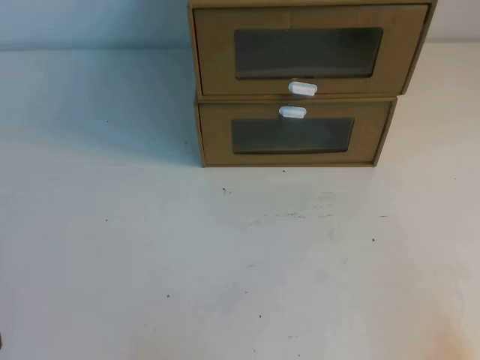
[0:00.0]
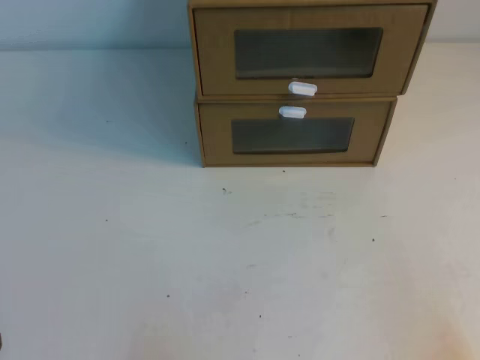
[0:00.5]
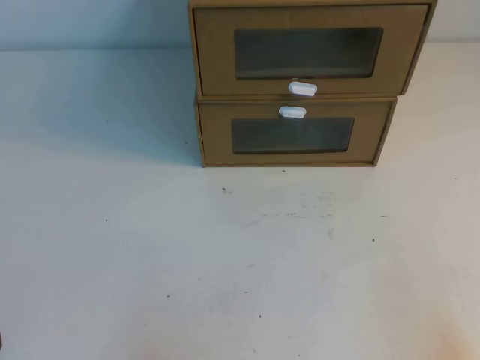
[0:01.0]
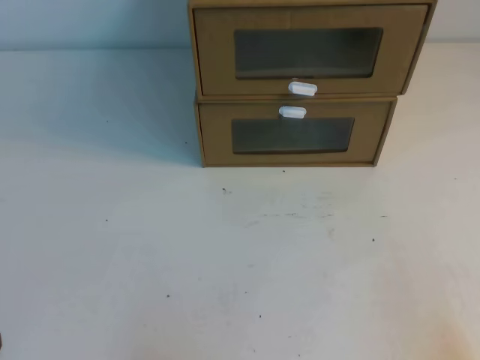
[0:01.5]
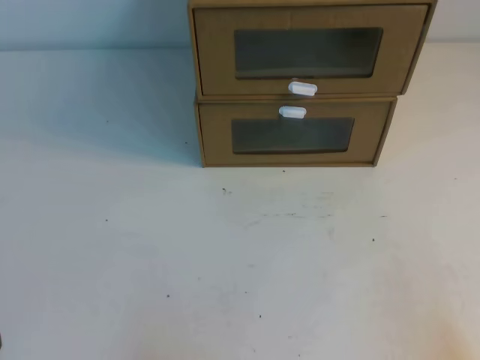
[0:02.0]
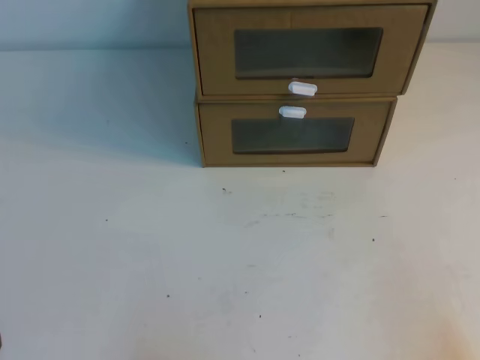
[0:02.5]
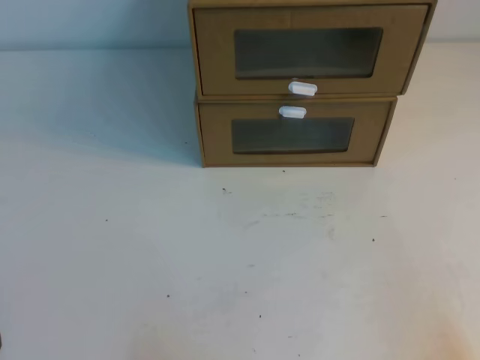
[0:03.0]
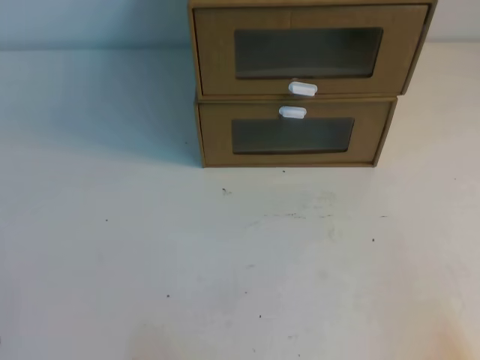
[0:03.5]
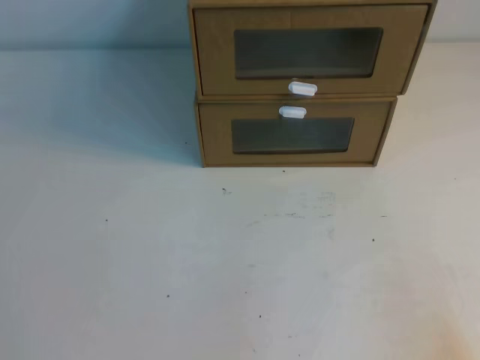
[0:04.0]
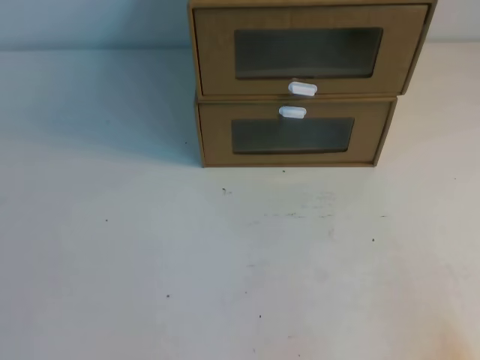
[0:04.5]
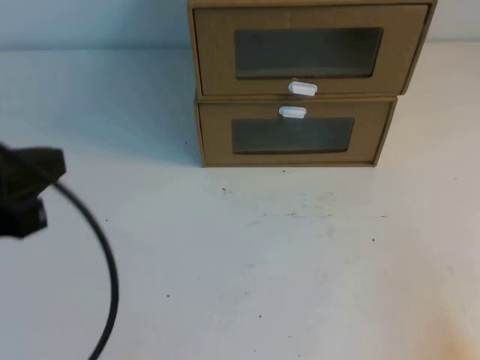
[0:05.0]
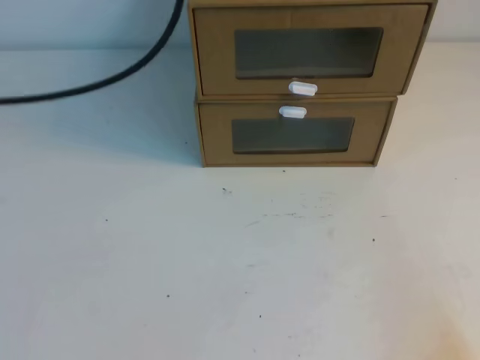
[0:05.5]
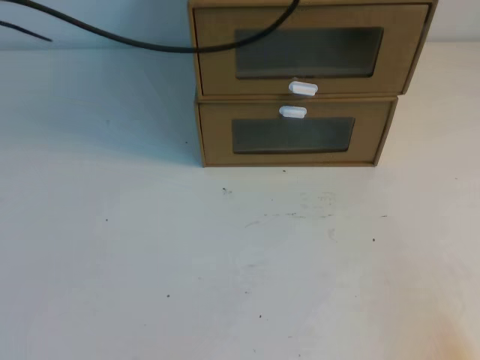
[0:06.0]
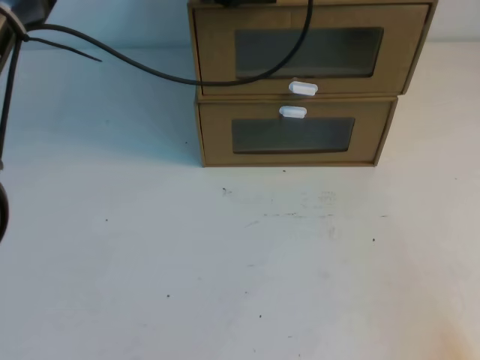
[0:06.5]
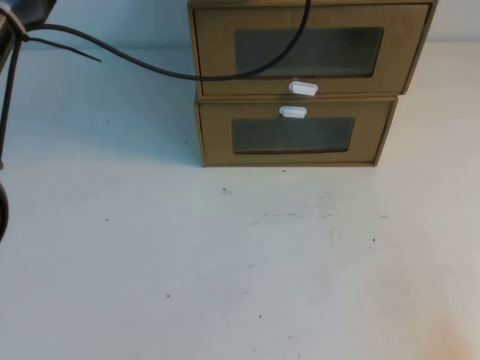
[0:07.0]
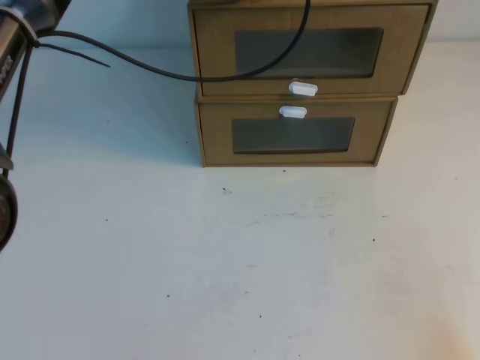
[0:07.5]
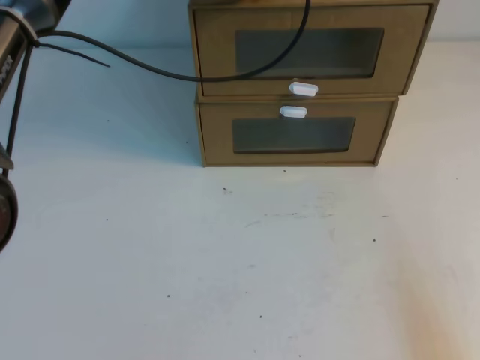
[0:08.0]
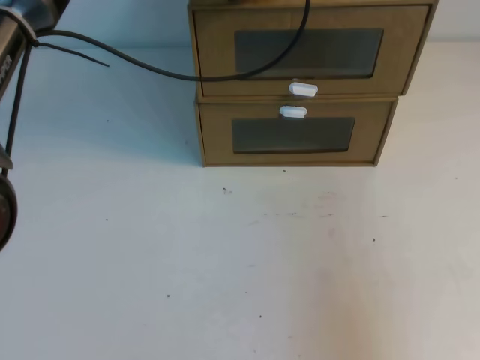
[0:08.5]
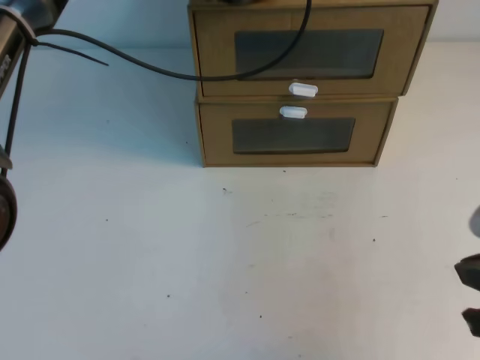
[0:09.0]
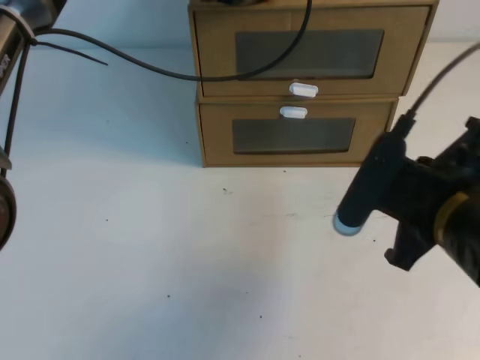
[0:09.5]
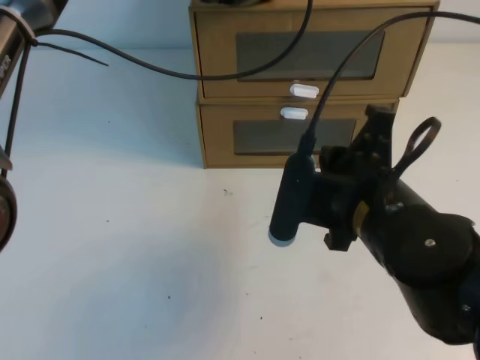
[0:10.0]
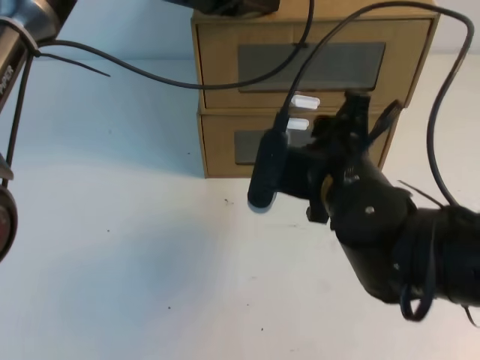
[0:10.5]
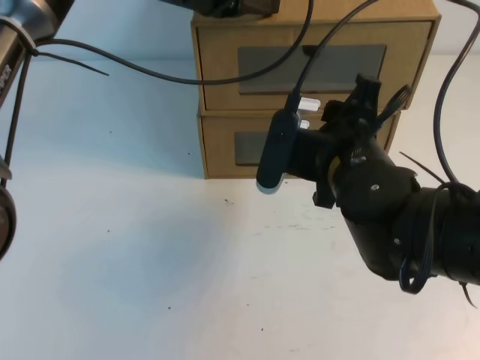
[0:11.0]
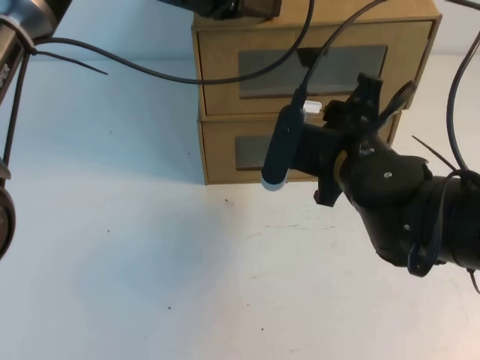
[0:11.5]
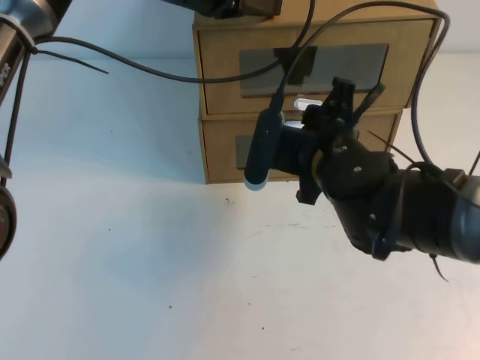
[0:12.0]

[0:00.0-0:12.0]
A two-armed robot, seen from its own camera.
Task of the whole recording: open the shoebox on the table.
0:00.0 to 0:02.0: Both grippers stay put.
0:04.0 to 0:06.0: The left gripper is displaced forward, upward and to the right by roughly 50 cm.
0:06.0 to 0:08.0: The left gripper goes some 10 cm downward and forward.
0:08.0 to 0:10.0: The right gripper moves to the left and forward, approximately 25 cm.
0:10.0 to 0:12.0: The right gripper travels forward by some 10 cm, and opens its fingers.

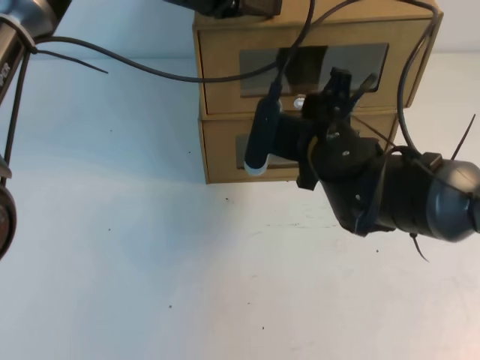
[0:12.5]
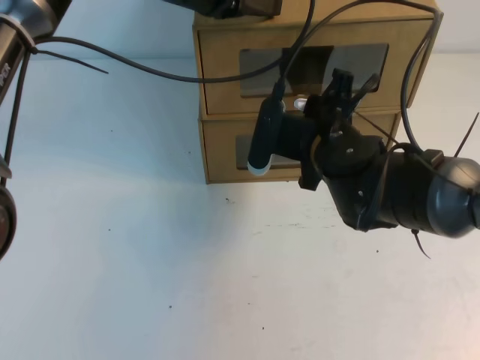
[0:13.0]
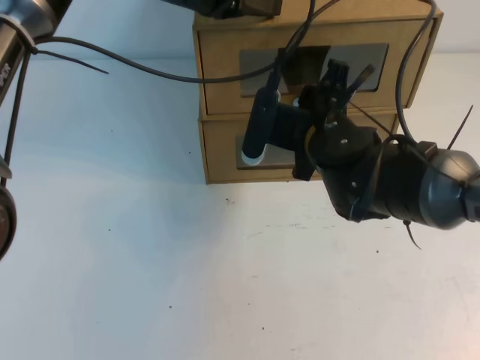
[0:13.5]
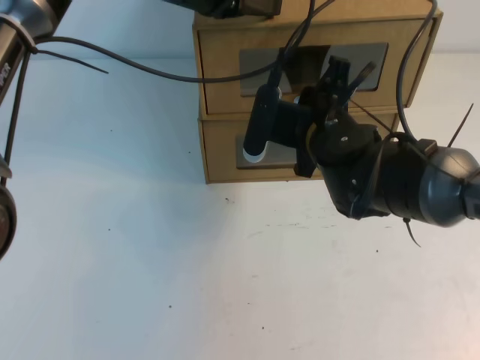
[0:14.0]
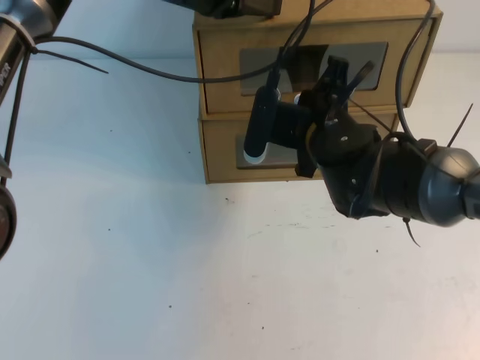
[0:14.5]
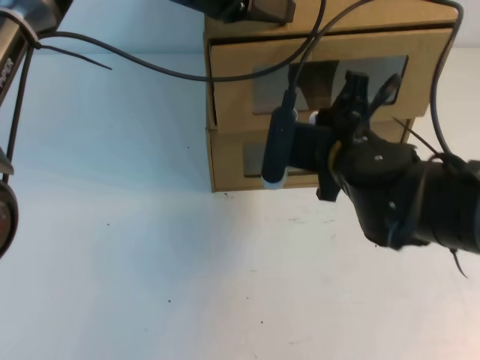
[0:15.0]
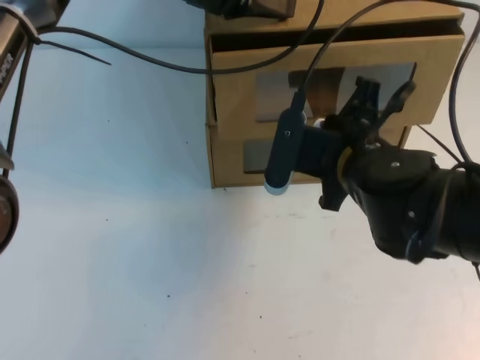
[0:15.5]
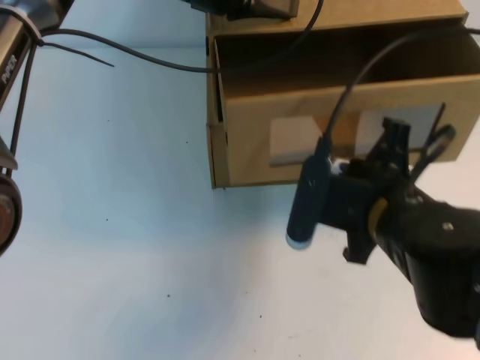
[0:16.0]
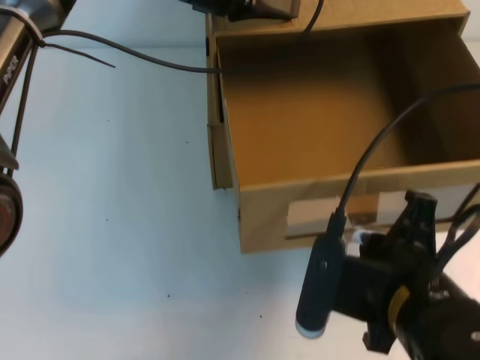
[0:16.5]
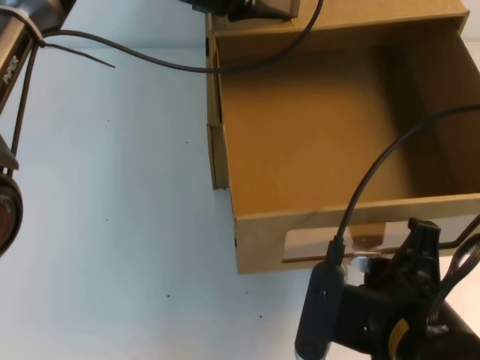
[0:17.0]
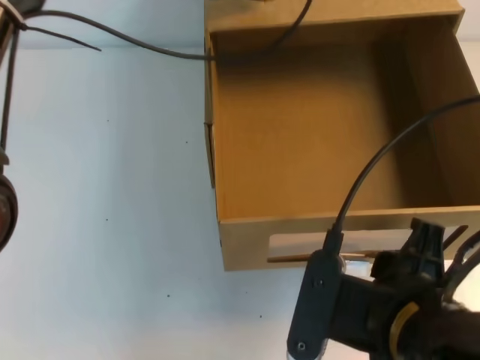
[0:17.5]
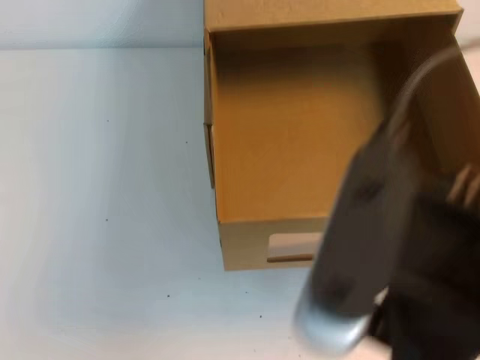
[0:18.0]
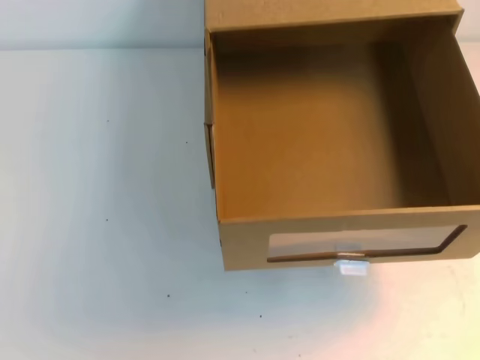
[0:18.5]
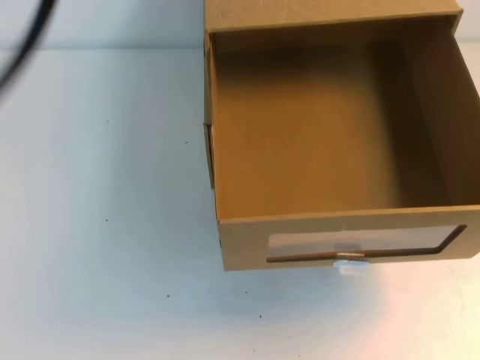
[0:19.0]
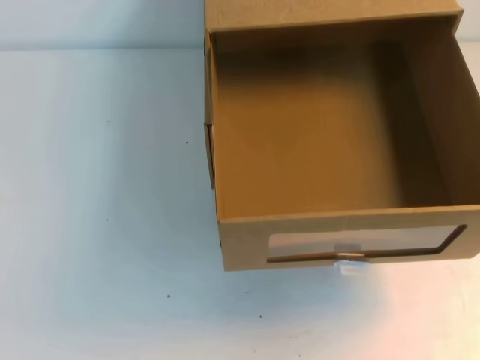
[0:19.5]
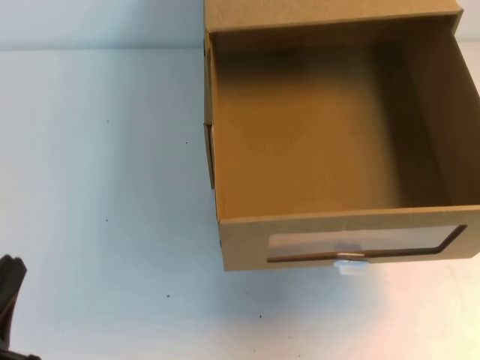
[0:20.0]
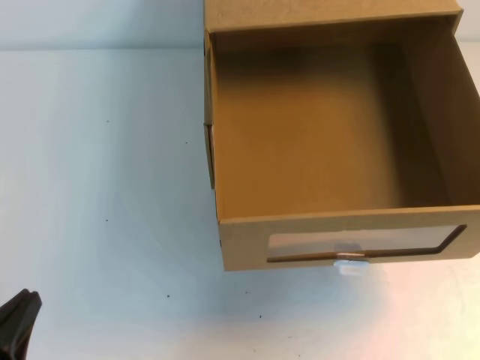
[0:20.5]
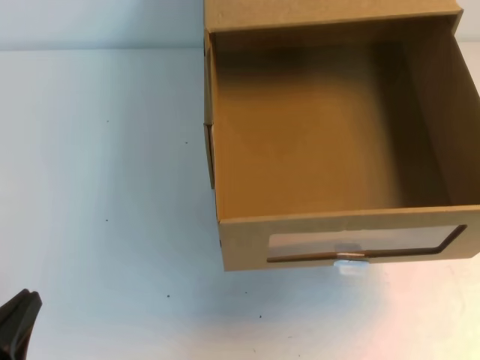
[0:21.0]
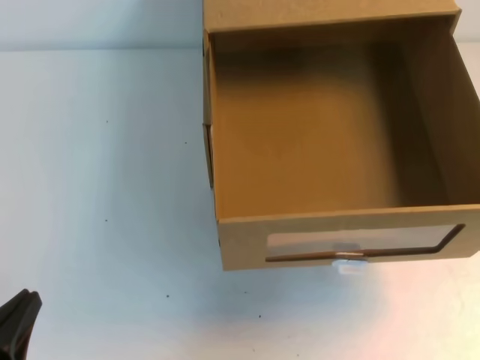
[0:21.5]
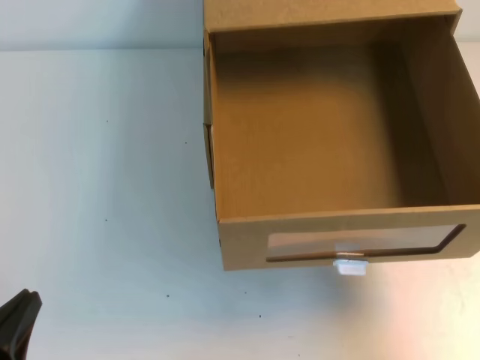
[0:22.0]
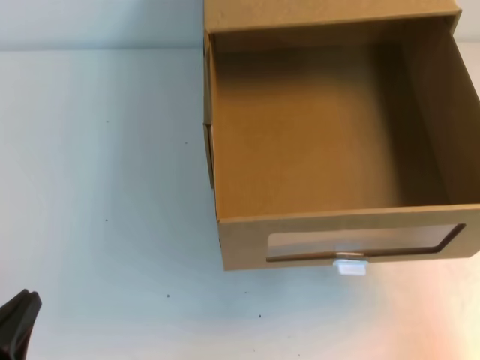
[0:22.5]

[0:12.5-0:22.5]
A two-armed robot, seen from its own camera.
Task of the whole recording: open the shoebox on the table.
0:12.5 to 0:14.5: The right gripper closes its fingers.
0:14.5 to 0:16.5: The right gripper is displaced backward by roughly 20 cm.
0:16.5 to 0:18.5: The right gripper heads upward and to the right, covering roughly 25 cm, and opens, then closes again, while the left gripper goes roughly 30 cm upward, backward and to the left.
0:18.5 to 0:20.5: The left gripper shifts about 40 cm downward. The right gripper goes roughly 10 cm to the right.
0:20.5 to 0:22.5: The right gripper goes about 20 cm downward.

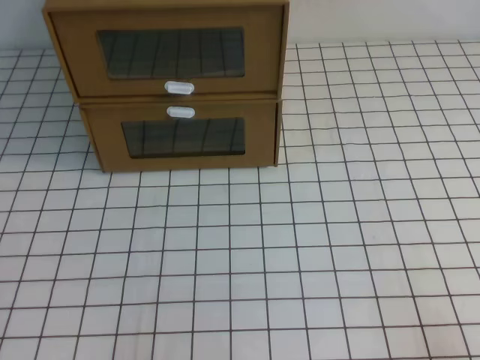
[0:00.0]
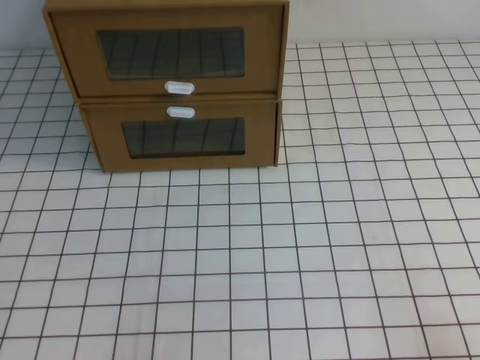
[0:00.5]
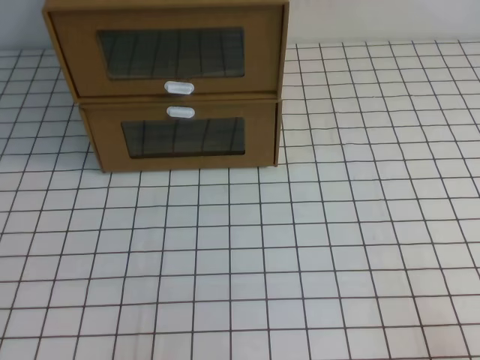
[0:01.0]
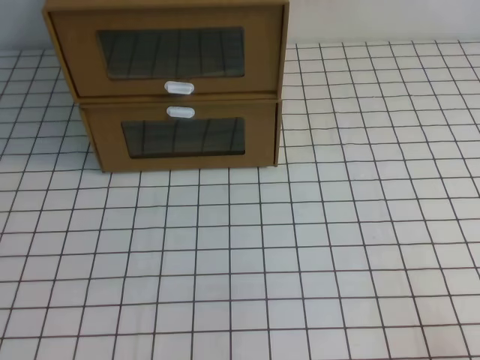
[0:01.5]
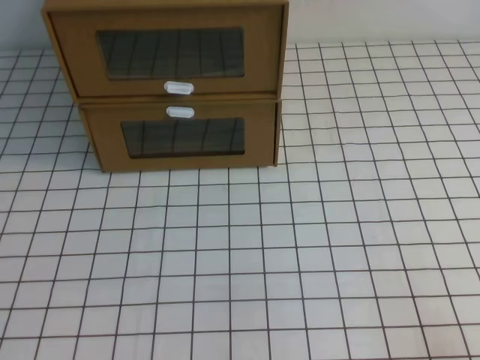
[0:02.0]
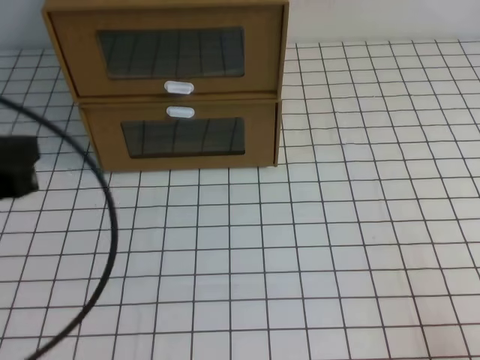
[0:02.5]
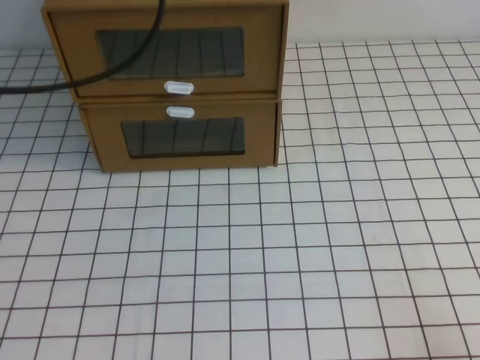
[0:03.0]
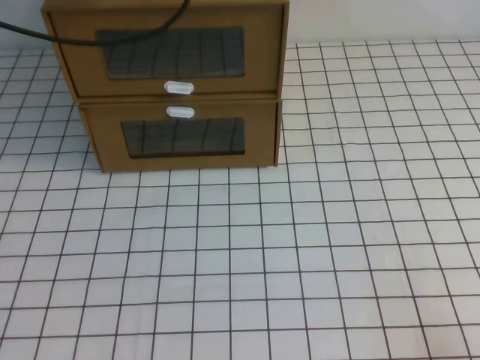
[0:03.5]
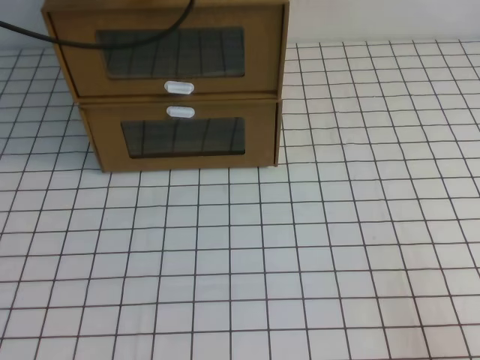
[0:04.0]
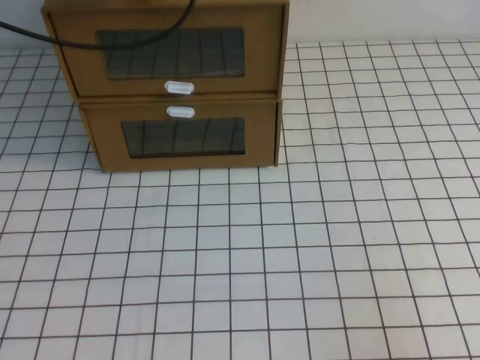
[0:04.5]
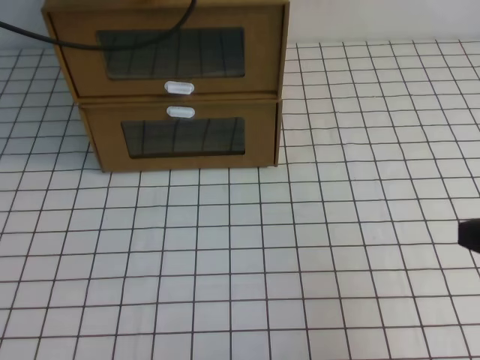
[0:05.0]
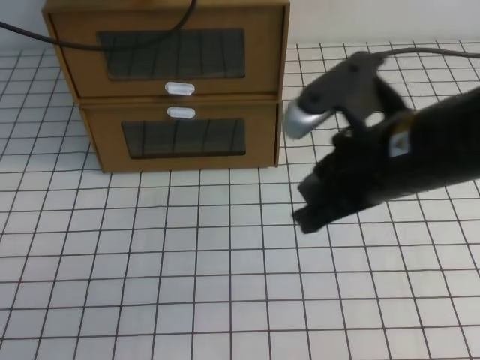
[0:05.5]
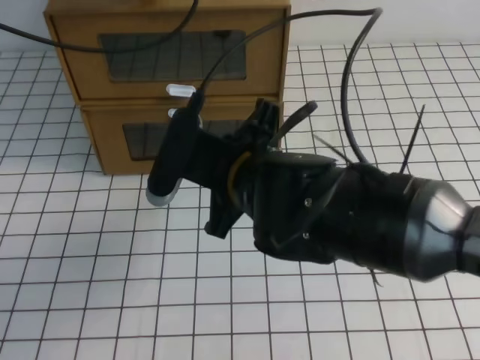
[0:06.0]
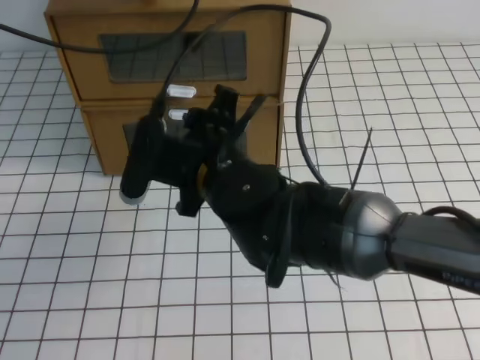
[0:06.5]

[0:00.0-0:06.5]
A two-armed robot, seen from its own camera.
Task of the whole recording: open the shoebox on the white tablecloth.
0:04.5 to 0:06.5: The right gripper heads to the left and forward, covering approximately 40 cm, and opens.
